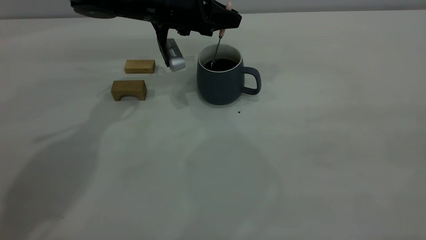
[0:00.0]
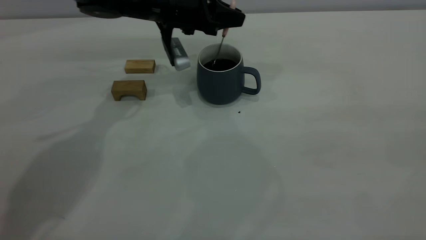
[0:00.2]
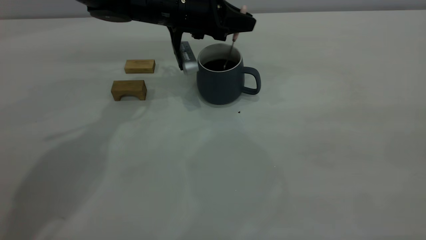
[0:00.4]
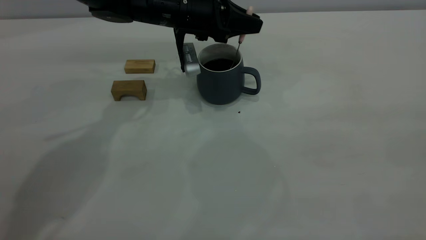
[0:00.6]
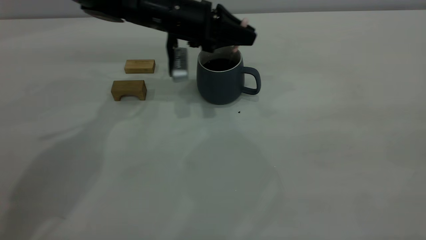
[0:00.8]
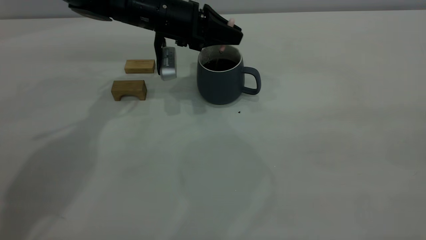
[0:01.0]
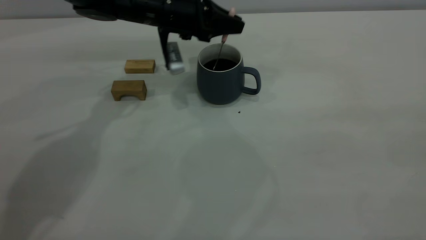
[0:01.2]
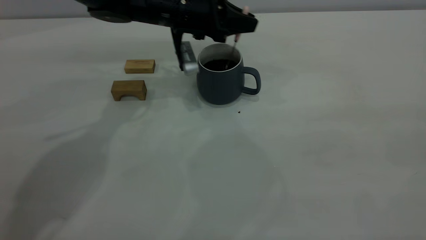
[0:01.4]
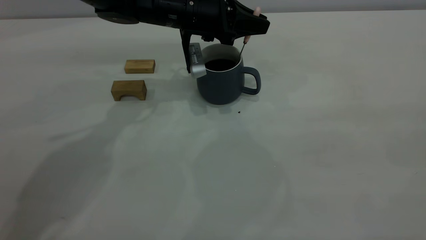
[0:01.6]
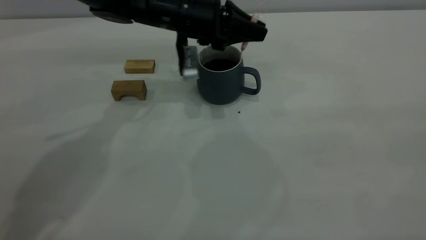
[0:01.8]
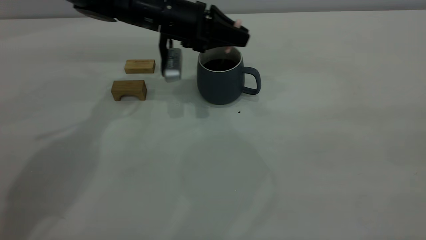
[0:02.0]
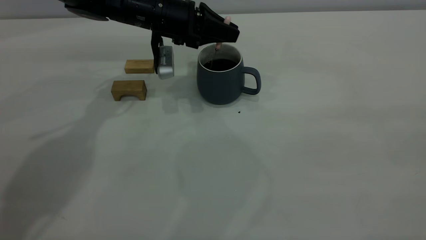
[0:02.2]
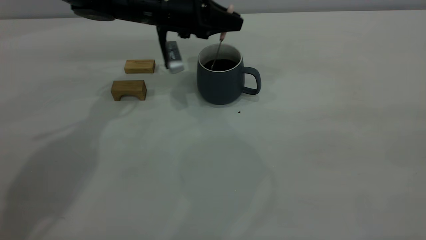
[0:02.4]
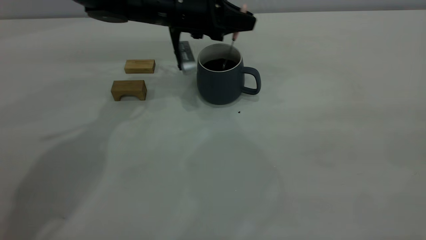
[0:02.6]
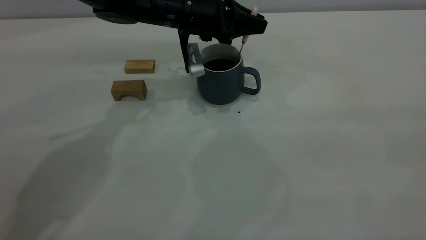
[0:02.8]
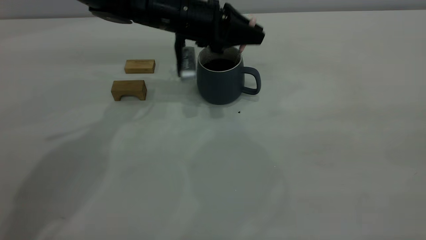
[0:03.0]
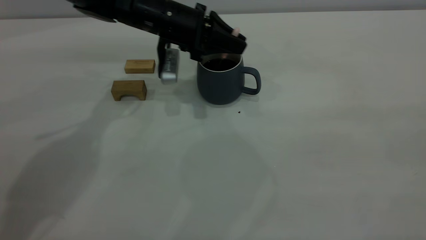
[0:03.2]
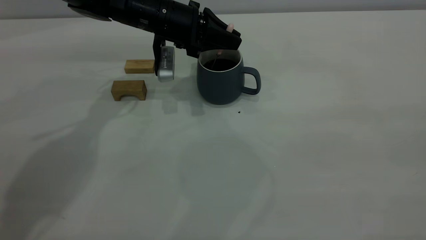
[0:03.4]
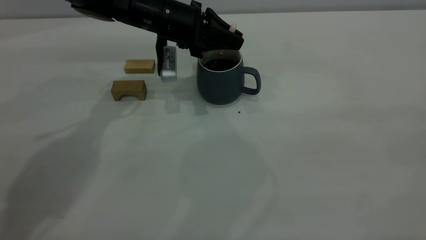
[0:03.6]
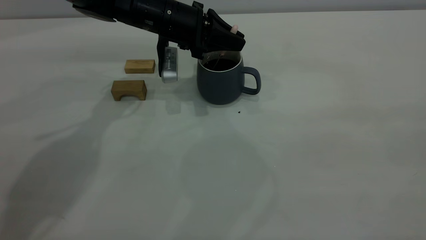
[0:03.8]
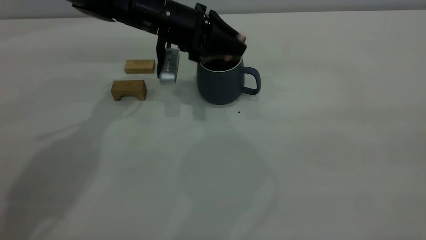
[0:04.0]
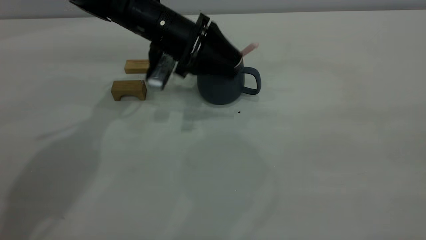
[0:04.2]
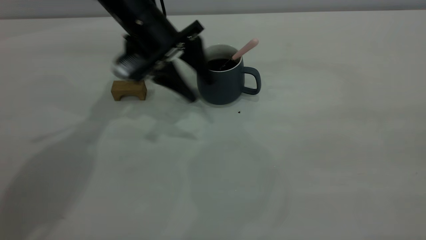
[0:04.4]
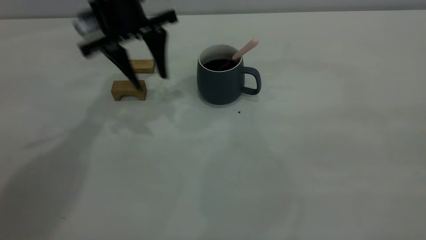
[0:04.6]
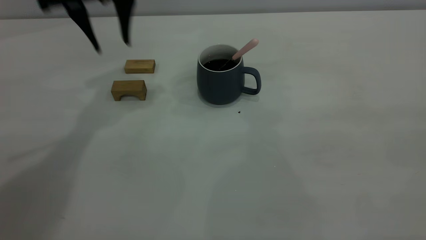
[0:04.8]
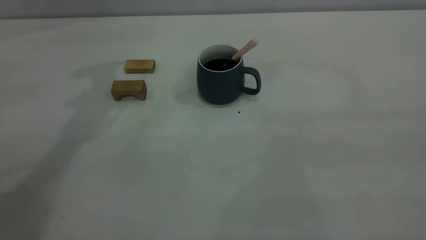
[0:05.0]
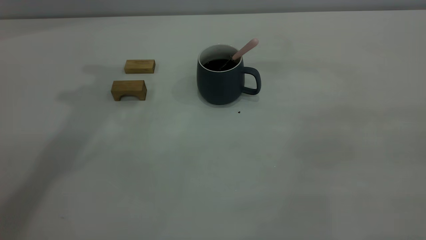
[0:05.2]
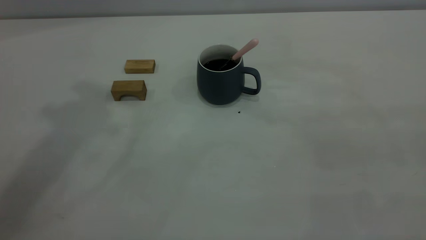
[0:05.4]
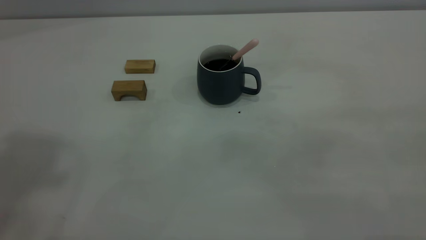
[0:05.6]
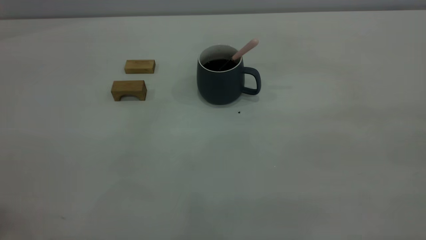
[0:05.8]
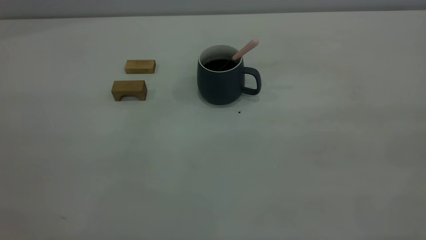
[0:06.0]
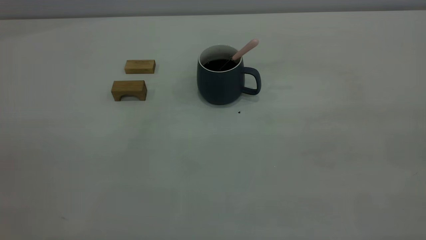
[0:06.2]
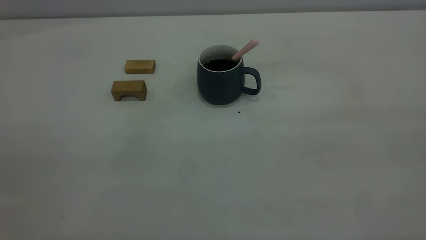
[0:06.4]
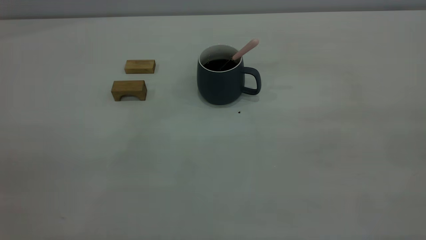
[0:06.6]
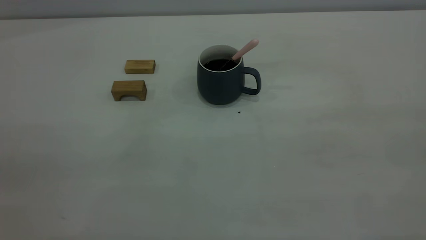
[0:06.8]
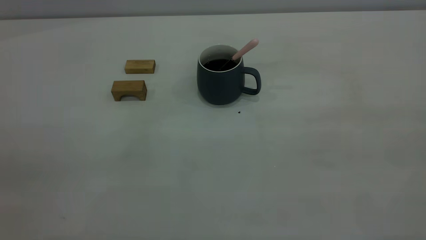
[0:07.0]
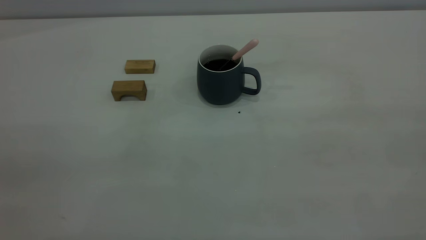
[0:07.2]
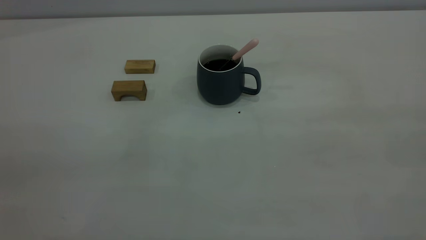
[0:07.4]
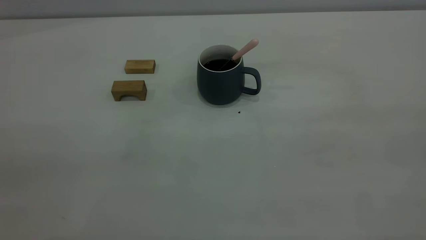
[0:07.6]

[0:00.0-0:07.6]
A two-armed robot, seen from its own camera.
Step, 0:00.0 to 0:04.4: Stir the coffee in the cup.
0:00.0 to 0:03.0: The grippers move only a little.
0:03.0 to 0:04.6: The left gripper heads upward and to the left, covering roughly 10 cm, and opens its fingers.
0:04.6 to 0:06.0: The left gripper travels backward and upward by about 50 cm.
